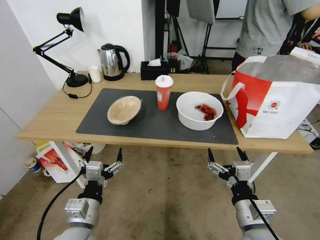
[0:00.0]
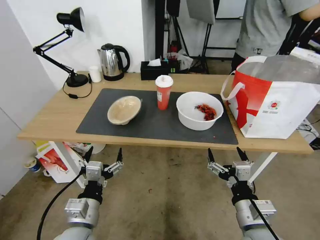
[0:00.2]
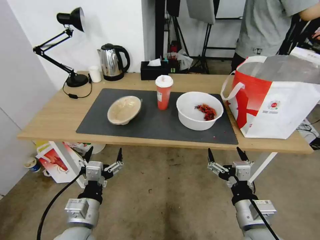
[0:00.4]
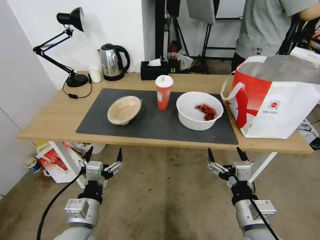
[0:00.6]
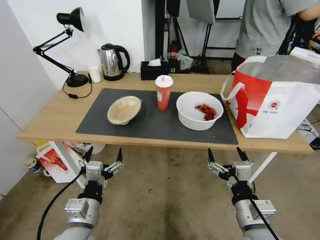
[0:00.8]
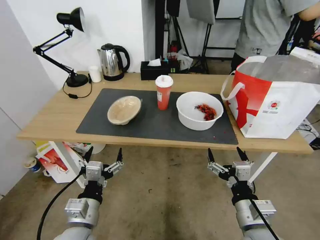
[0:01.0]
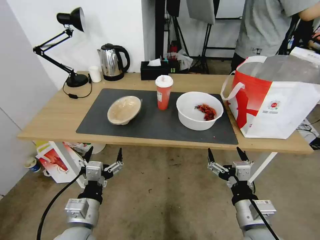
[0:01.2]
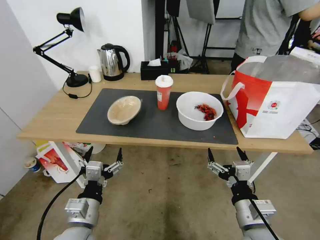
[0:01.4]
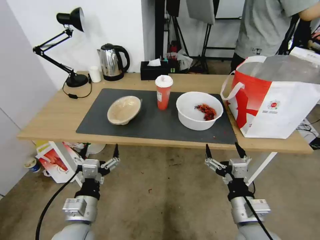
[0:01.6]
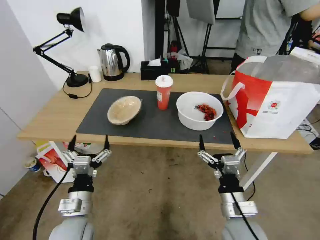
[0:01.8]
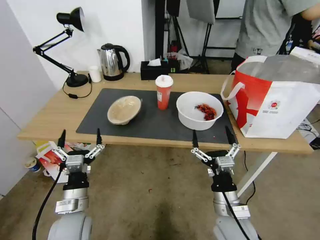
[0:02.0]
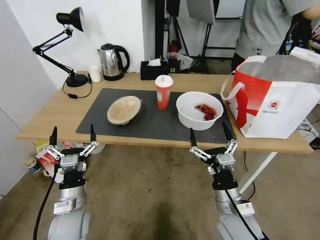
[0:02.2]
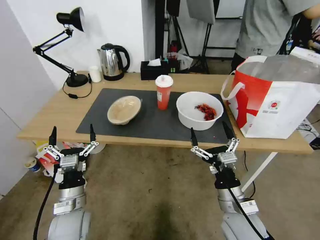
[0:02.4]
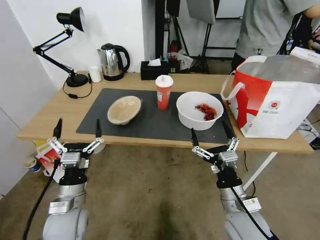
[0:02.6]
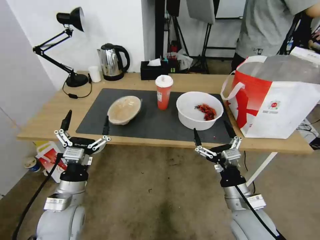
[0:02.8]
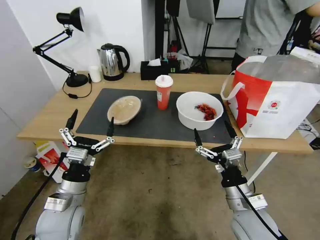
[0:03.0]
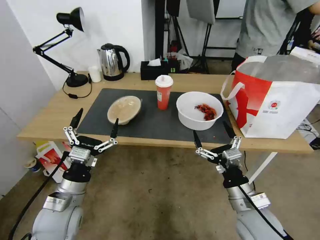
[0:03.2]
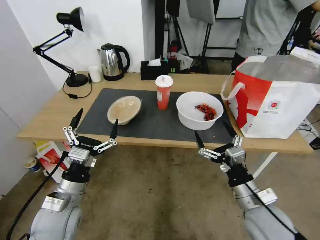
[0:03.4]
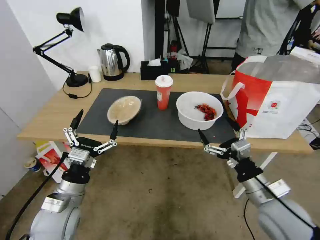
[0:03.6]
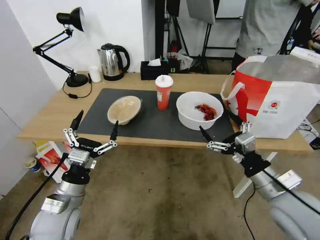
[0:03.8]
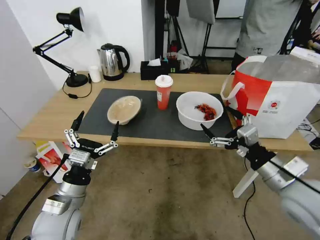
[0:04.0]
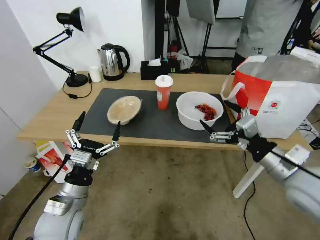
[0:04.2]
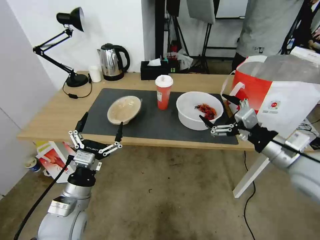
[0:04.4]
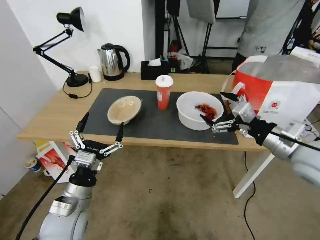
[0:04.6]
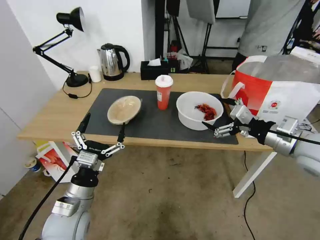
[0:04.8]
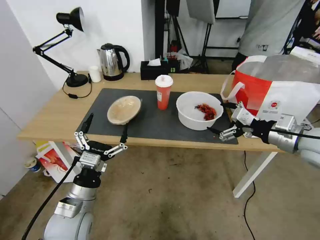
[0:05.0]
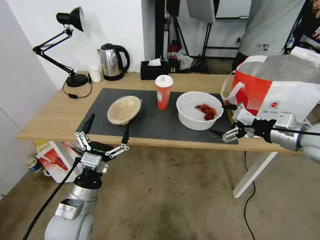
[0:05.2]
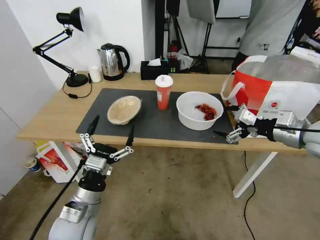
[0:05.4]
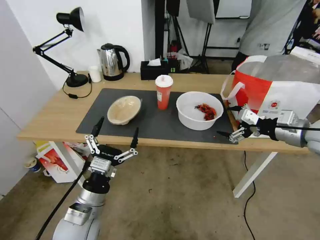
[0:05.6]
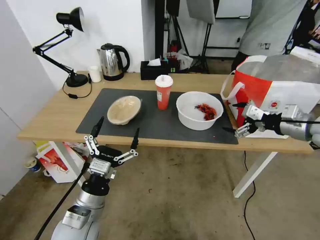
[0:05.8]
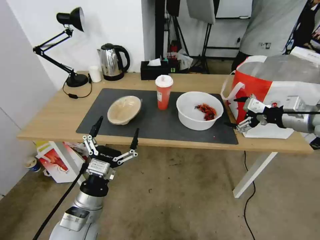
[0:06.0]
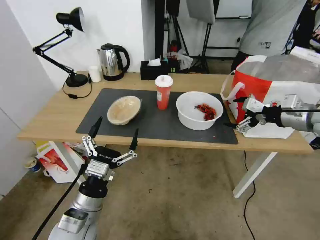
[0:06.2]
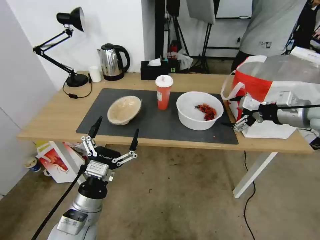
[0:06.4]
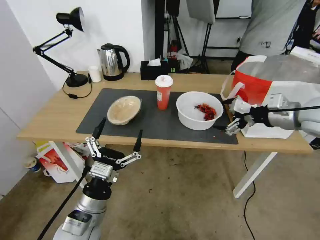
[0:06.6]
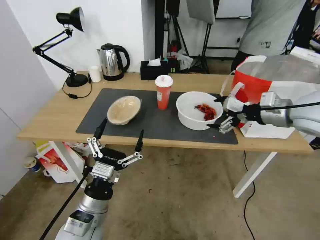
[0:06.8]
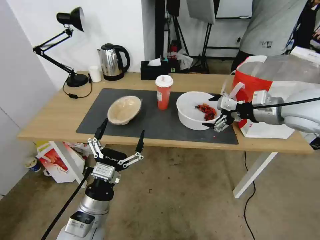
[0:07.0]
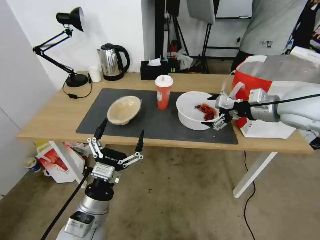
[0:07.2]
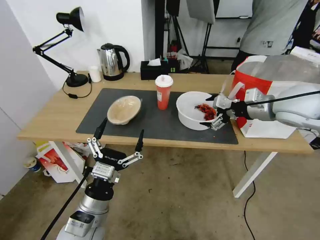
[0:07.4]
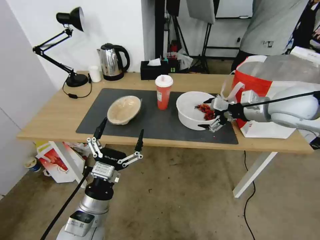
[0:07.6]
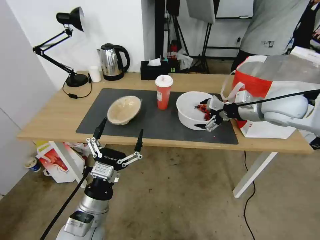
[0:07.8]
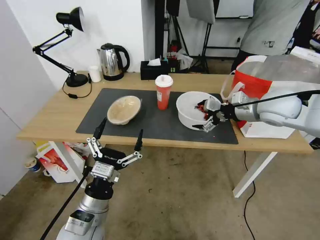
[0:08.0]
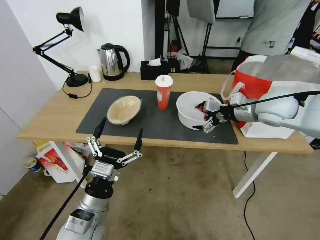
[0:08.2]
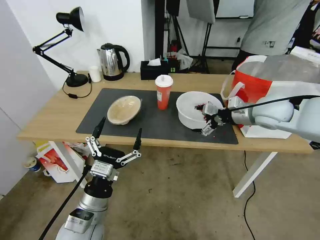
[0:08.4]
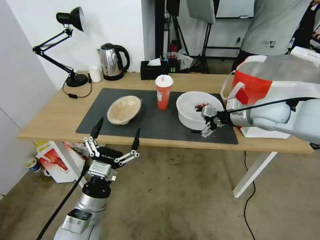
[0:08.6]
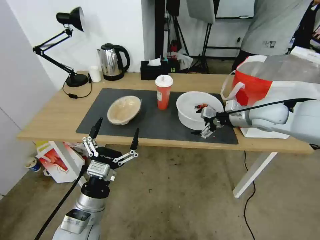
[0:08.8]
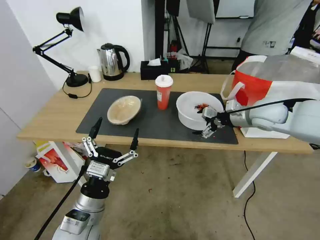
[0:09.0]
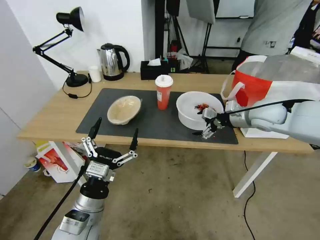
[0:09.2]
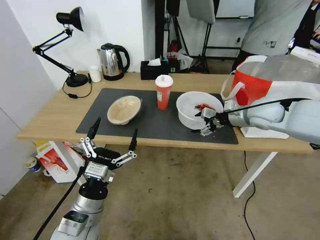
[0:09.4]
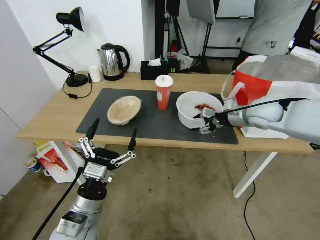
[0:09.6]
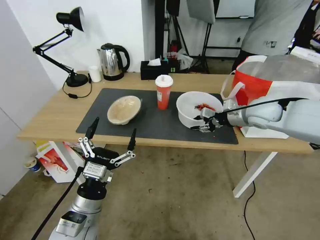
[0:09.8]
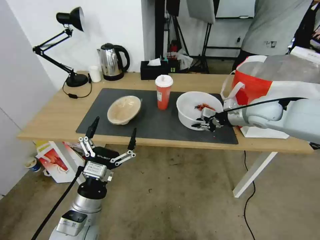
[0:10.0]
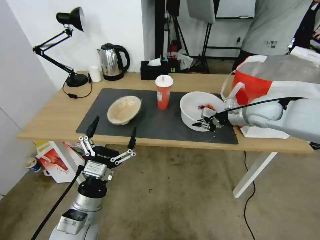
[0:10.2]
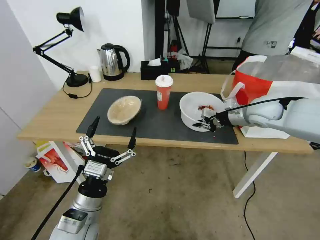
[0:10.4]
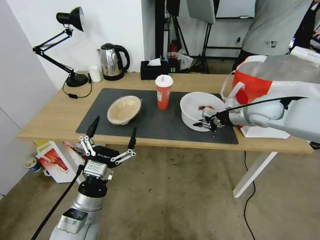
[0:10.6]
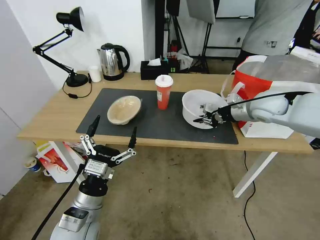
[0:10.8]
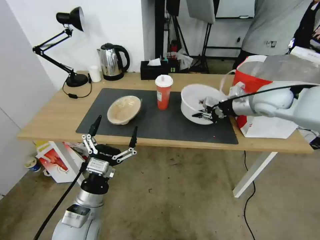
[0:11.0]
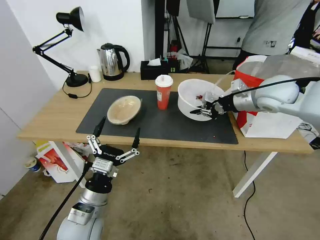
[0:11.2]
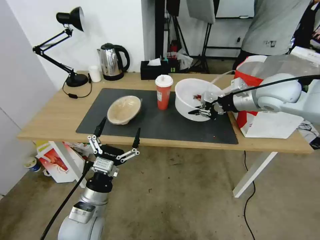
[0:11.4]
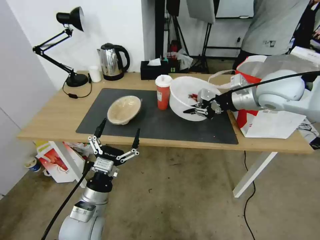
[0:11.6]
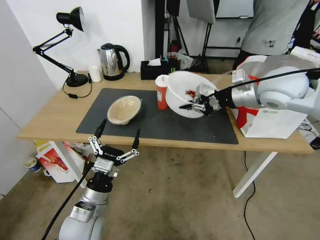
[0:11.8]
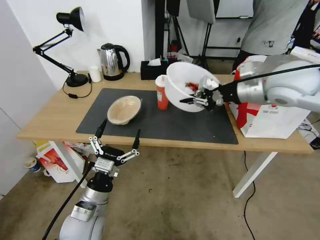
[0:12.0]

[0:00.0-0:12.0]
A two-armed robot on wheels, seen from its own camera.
Task of the whole recording: Pick up the trash from the table and place it into the takeout bag.
0:01.6 to 0:03.0: The left gripper shifts by some 5 cm.
0:03.0 to 0:04.4: The right gripper goes approximately 20 cm upward, to the right and forward.
0:04.4 to 0:06.0: The right gripper heads forward, to the right and upward, covering some 15 cm.
0:06.0 to 0:07.6: The right gripper heads to the left and forward, covering approximately 10 cm.
0:07.6 to 0:09.0: The right gripper travels downward by approximately 5 cm.
0:09.0 to 0:10.4: The right gripper closes its fingers.
0:10.4 to 0:12.0: The right gripper moves upward and backward, about 15 cm.

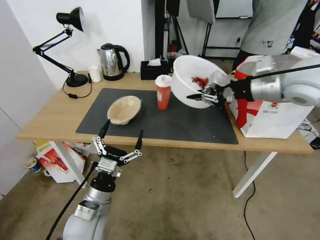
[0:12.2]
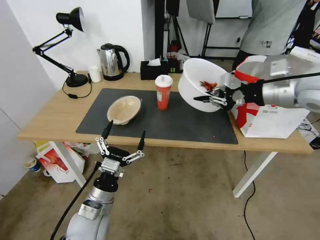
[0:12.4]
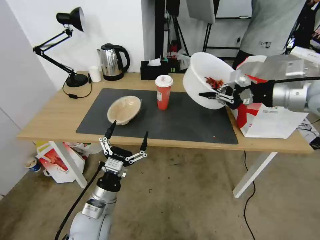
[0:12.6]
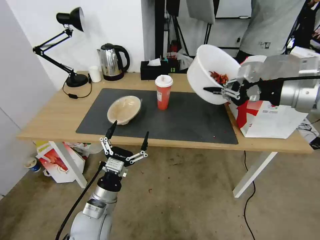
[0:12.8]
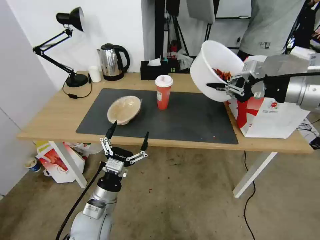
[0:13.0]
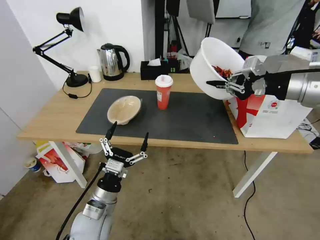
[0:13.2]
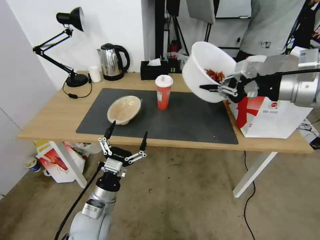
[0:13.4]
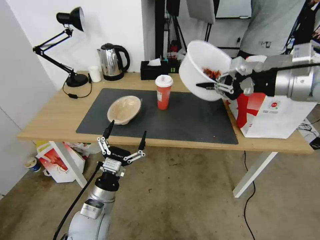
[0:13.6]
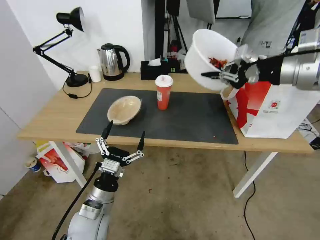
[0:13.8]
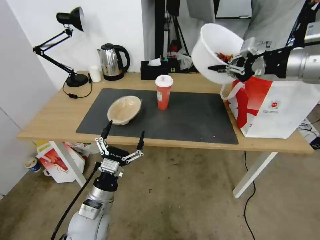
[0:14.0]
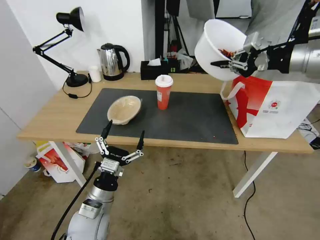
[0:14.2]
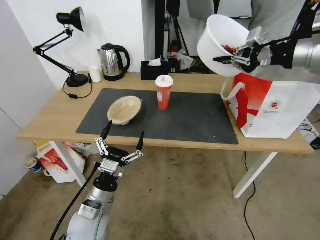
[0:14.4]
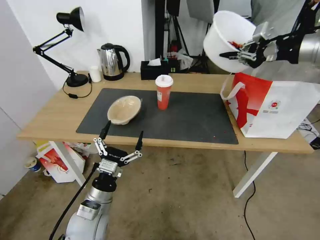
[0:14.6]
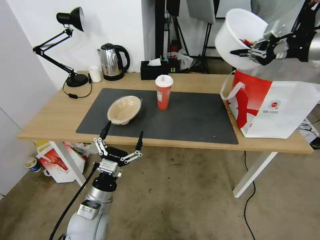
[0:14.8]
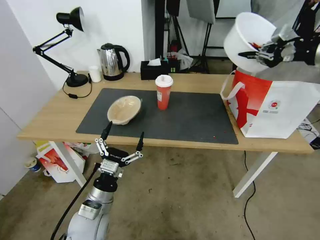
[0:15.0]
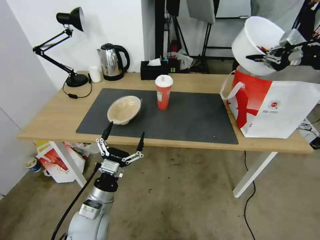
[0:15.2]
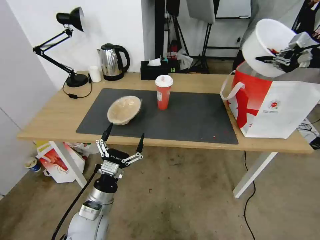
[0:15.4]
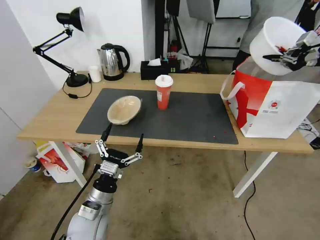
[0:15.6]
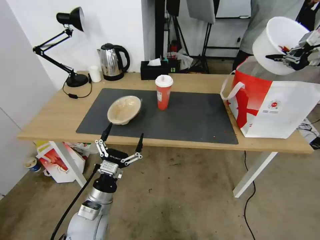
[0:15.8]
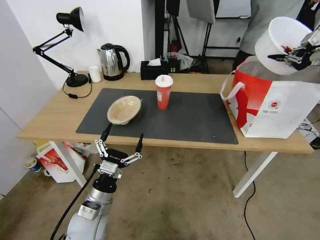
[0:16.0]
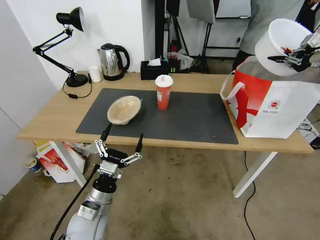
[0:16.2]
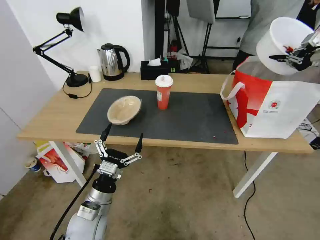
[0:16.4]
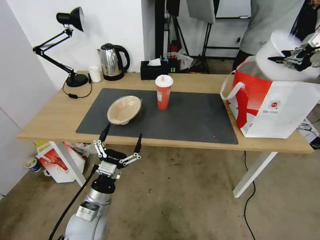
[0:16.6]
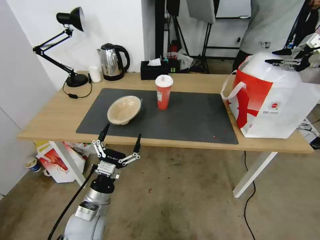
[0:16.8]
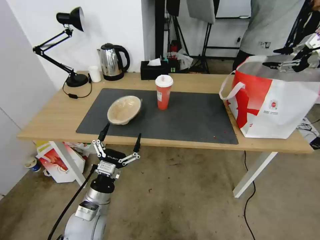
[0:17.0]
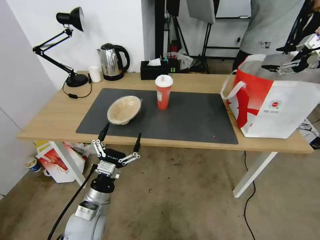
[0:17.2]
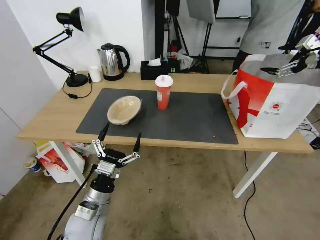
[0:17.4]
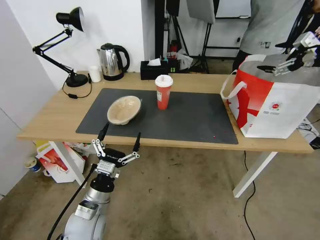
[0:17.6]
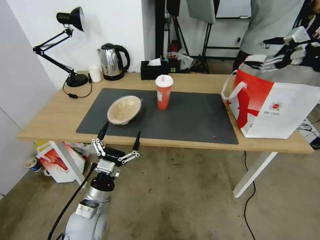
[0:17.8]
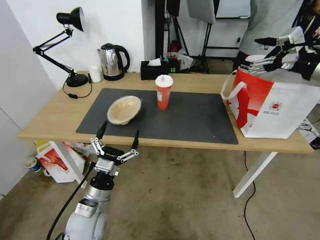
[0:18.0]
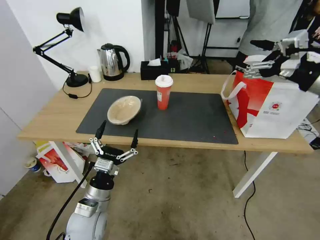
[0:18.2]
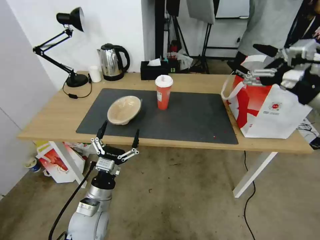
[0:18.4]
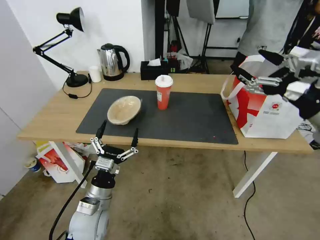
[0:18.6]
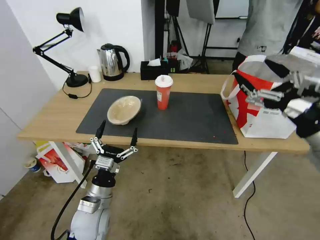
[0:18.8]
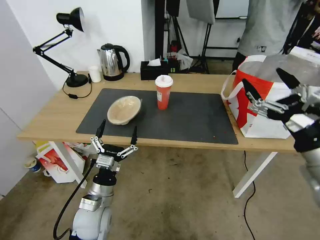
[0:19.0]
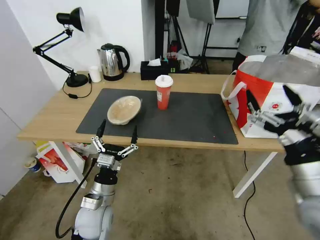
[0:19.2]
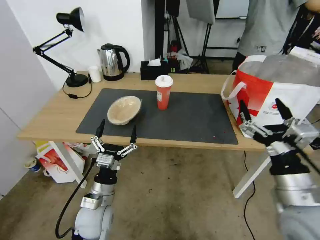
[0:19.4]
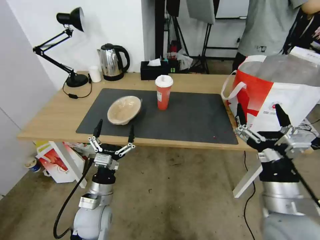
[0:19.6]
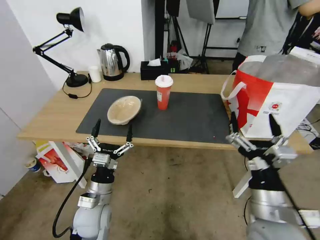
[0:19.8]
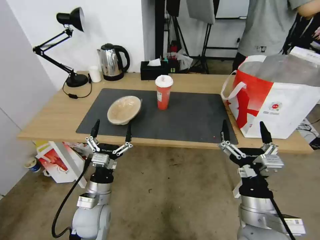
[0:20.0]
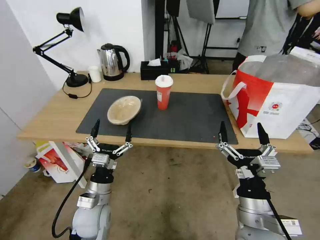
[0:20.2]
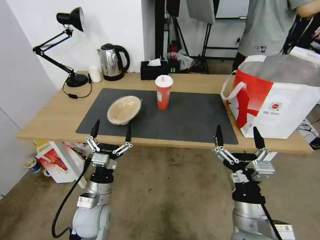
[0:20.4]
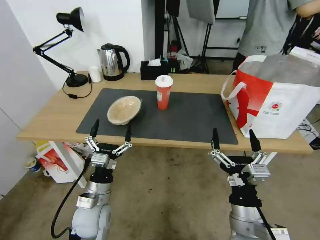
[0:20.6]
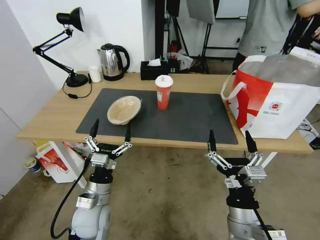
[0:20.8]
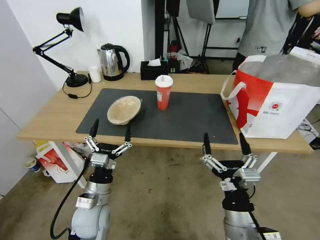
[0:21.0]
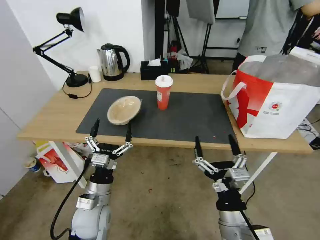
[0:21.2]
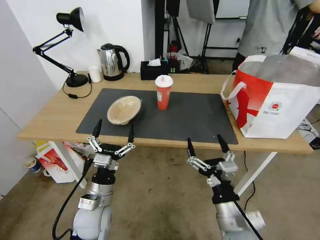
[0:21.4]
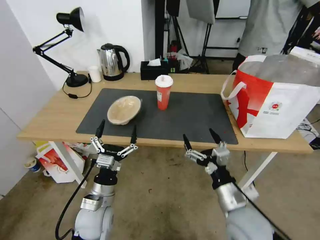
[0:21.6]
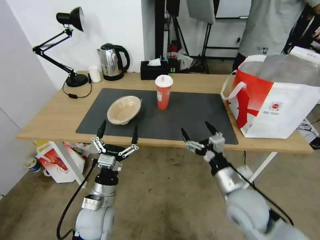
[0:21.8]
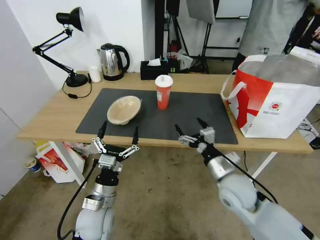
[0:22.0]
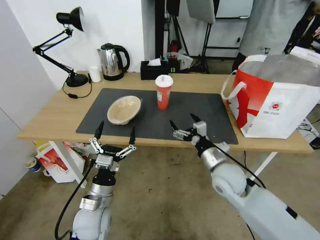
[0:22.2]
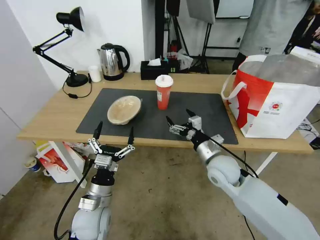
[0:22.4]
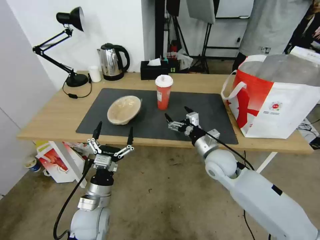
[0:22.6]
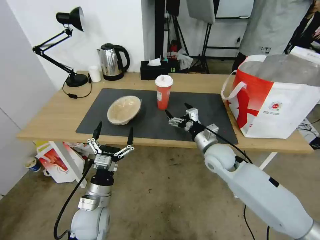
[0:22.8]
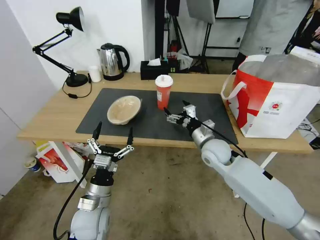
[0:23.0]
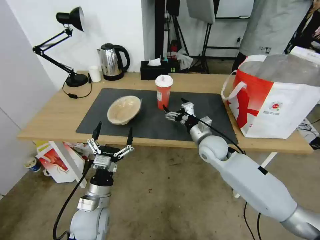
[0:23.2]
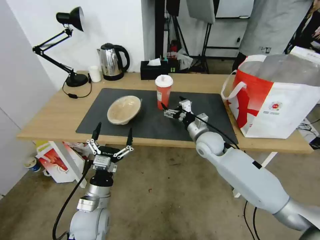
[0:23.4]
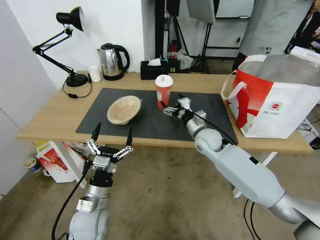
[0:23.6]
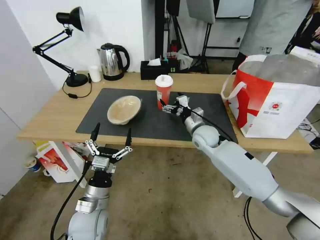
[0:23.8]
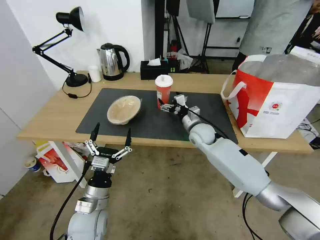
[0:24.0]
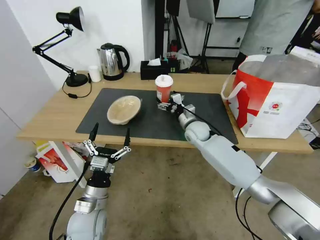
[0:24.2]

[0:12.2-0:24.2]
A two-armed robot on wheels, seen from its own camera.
Task of the whole recording: Pick up the trash from the table and place it into the takeout bag.
0:13.8 to 0:15.2: The right gripper goes approximately 15 cm to the right.
0:15.2 to 0:16.6: The right gripper shifts approximately 5 cm to the right.
0:16.6 to 0:18.2: The right gripper heads to the left and backward, covering approximately 20 cm, and opens.
0:18.2 to 0:19.8: The right gripper moves downward, backward and to the left, roughly 35 cm.
0:19.8 to 0:21.2: The right gripper shifts about 5 cm to the left and downward.
0:21.2 to 0:22.6: The right gripper is displaced forward by approximately 25 cm.
0:22.6 to 0:24.2: The right gripper is displaced forward by approximately 15 cm.
